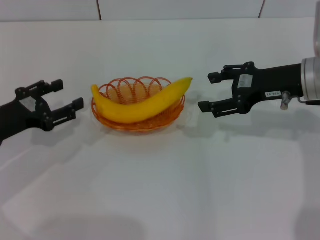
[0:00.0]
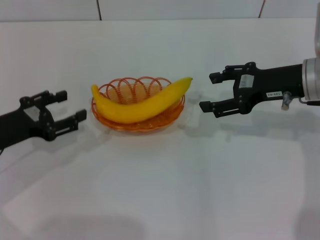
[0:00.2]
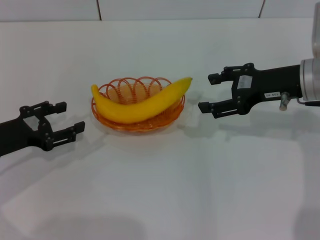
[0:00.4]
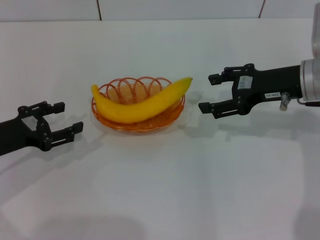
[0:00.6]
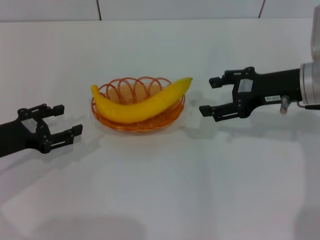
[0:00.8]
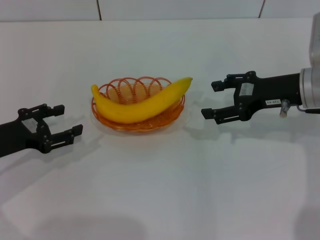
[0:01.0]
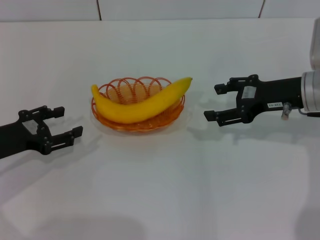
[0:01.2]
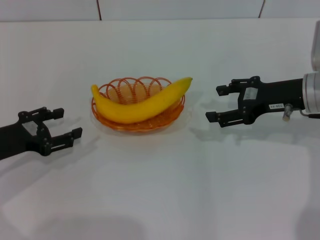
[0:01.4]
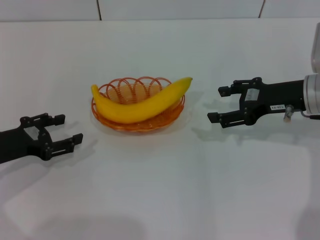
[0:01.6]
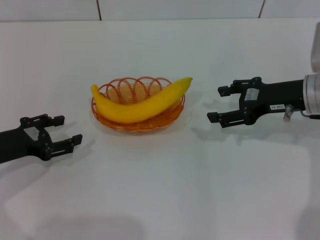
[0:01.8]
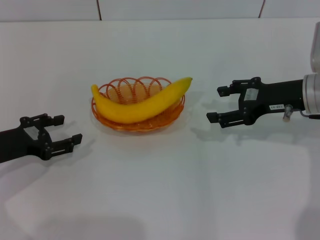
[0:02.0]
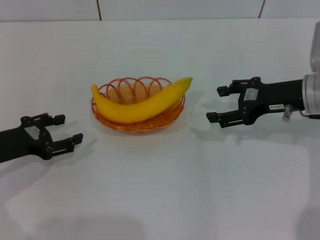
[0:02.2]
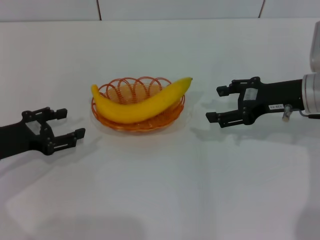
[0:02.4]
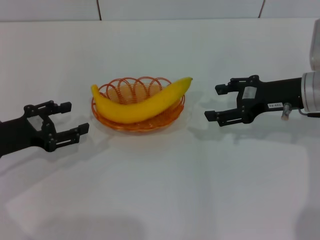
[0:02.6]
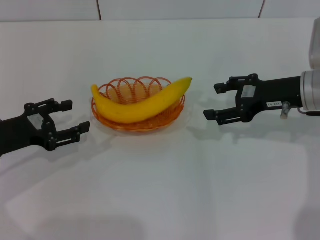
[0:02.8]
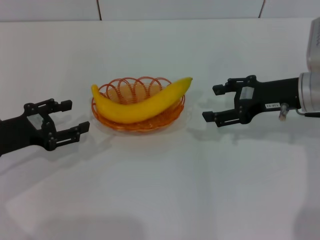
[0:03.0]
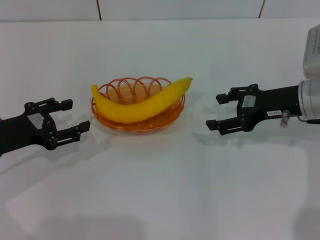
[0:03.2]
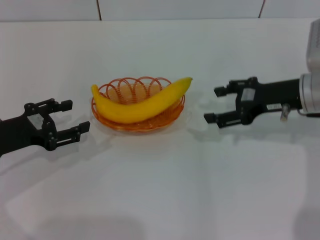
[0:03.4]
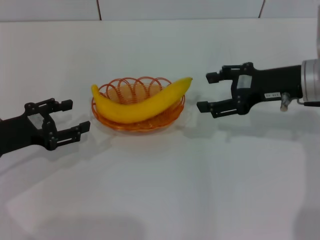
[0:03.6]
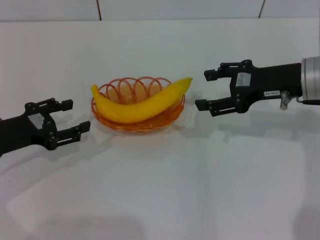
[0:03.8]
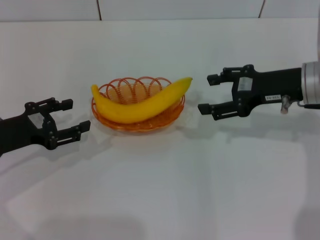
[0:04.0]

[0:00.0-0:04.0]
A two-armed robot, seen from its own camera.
0:00.0 to 0:01.4: There are only small adjustments of the grippers.
0:01.4 to 0:02.6: Both grippers stay about where they are.
0:02.6 to 0:04.0: The grippers stay close to where they were, moving slightly.
